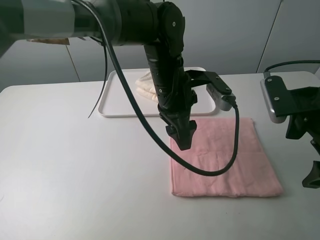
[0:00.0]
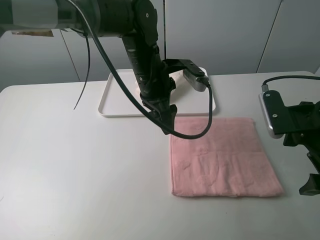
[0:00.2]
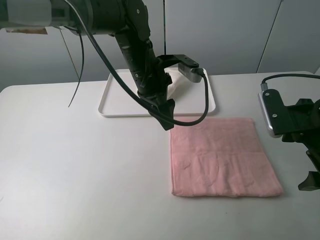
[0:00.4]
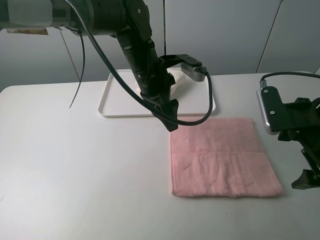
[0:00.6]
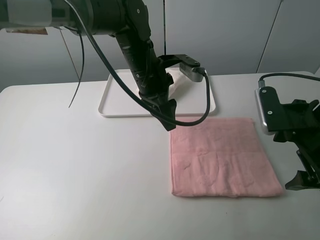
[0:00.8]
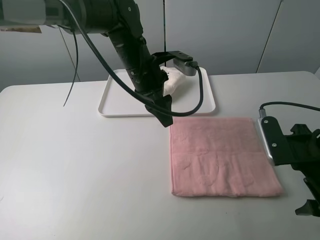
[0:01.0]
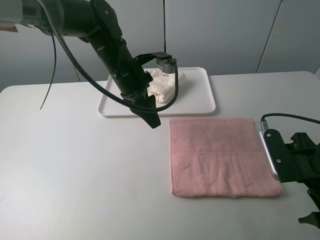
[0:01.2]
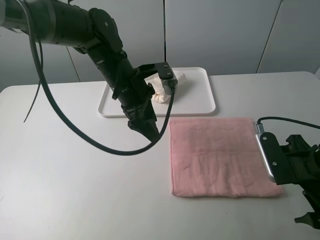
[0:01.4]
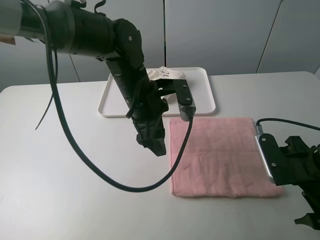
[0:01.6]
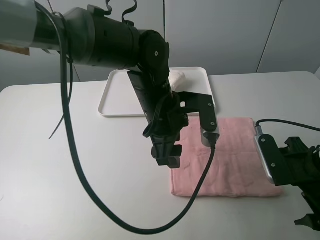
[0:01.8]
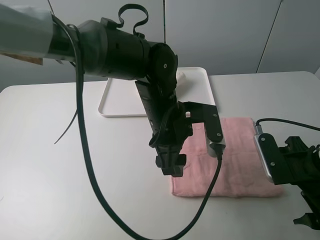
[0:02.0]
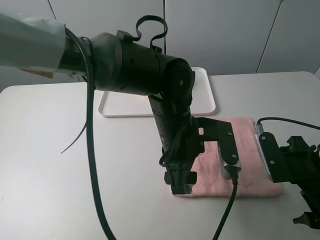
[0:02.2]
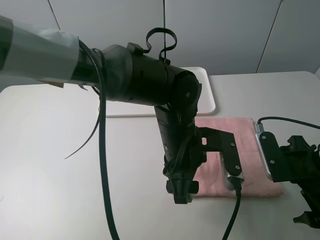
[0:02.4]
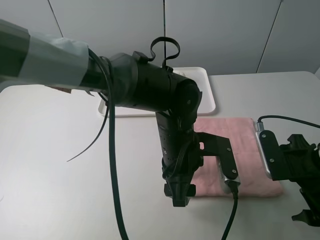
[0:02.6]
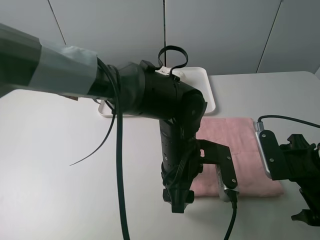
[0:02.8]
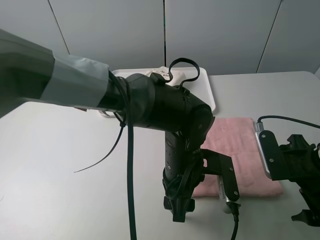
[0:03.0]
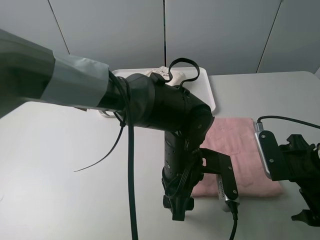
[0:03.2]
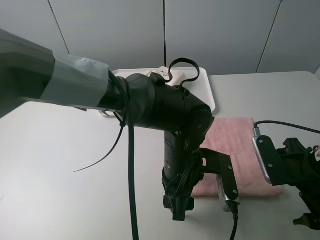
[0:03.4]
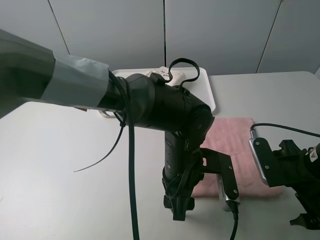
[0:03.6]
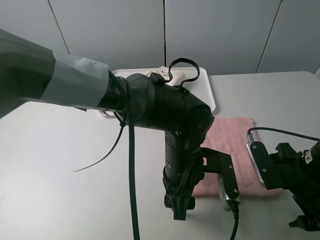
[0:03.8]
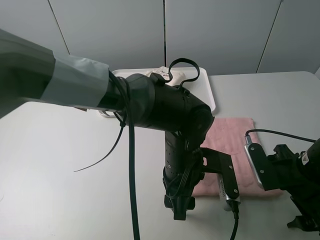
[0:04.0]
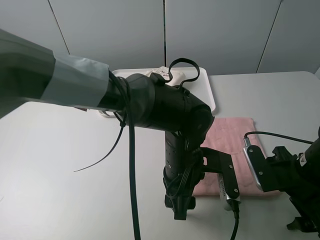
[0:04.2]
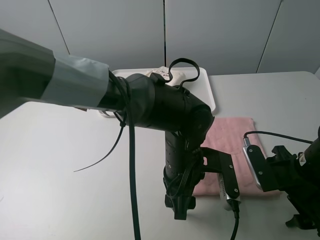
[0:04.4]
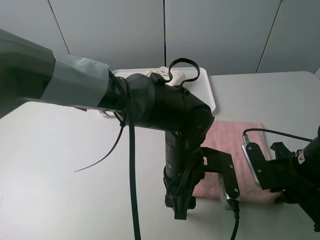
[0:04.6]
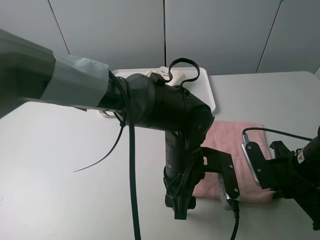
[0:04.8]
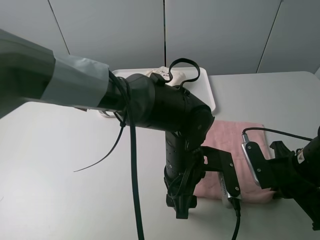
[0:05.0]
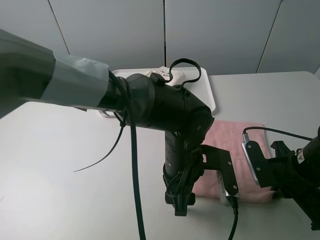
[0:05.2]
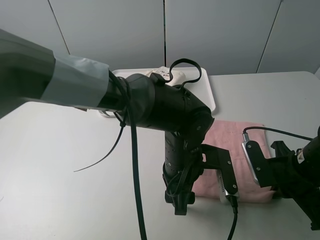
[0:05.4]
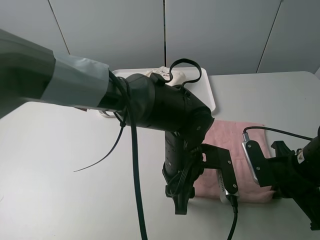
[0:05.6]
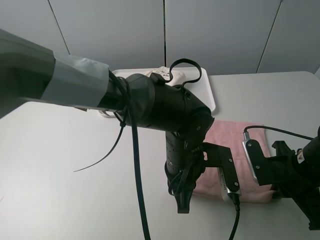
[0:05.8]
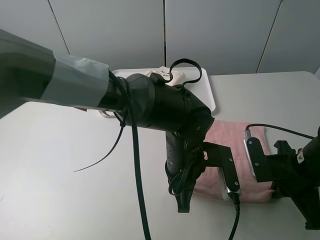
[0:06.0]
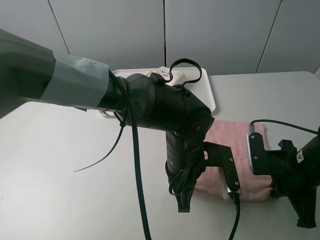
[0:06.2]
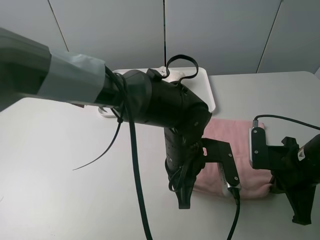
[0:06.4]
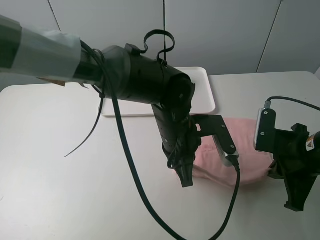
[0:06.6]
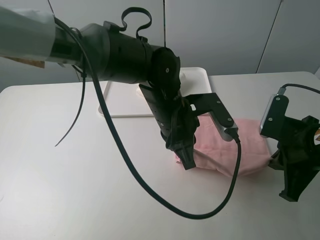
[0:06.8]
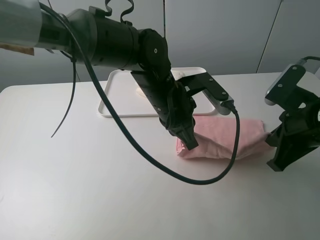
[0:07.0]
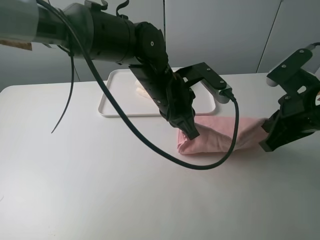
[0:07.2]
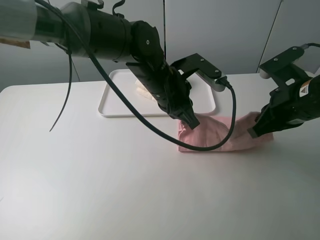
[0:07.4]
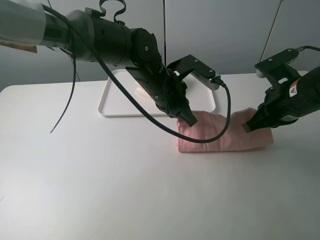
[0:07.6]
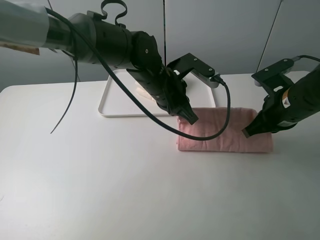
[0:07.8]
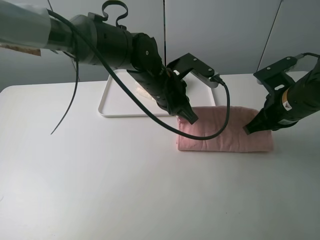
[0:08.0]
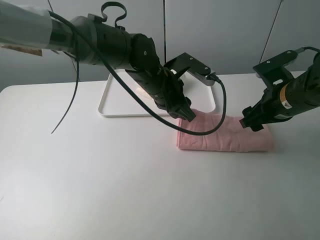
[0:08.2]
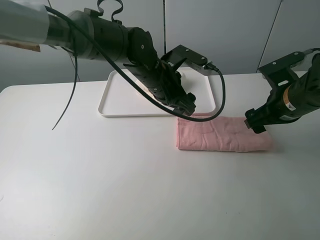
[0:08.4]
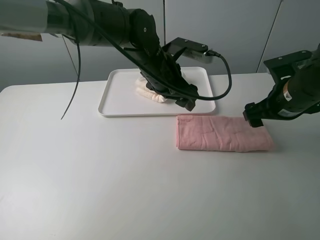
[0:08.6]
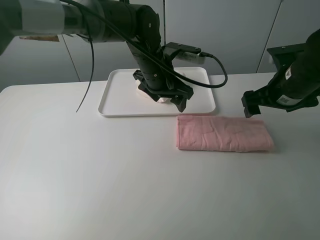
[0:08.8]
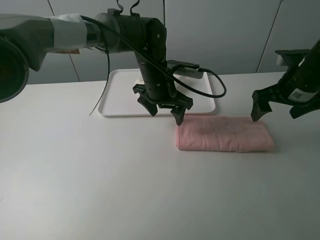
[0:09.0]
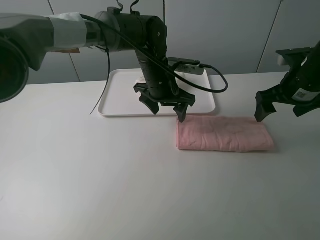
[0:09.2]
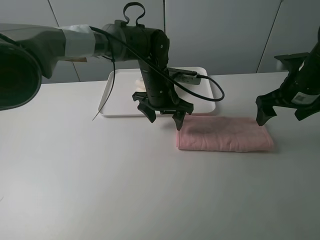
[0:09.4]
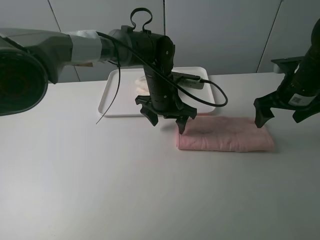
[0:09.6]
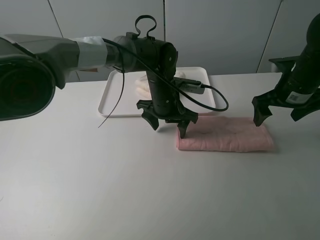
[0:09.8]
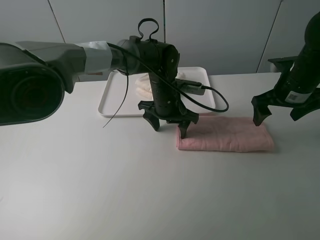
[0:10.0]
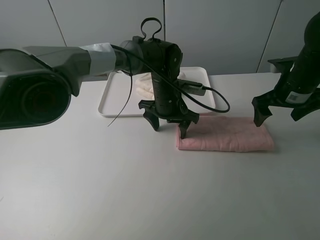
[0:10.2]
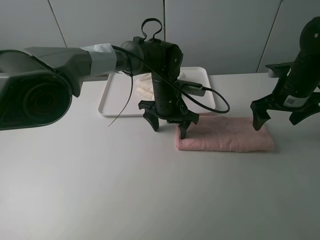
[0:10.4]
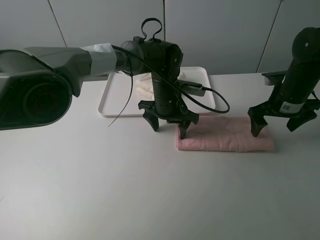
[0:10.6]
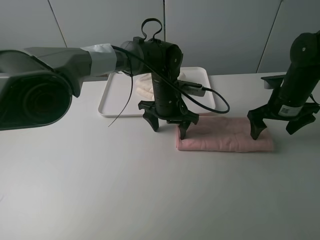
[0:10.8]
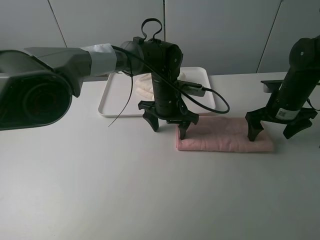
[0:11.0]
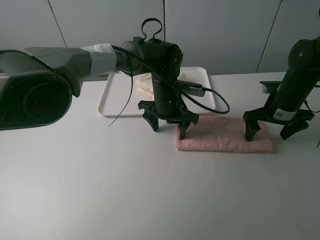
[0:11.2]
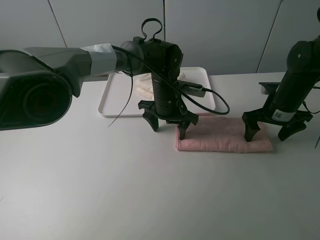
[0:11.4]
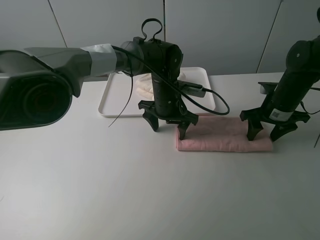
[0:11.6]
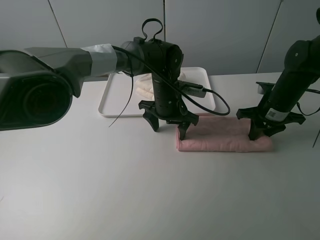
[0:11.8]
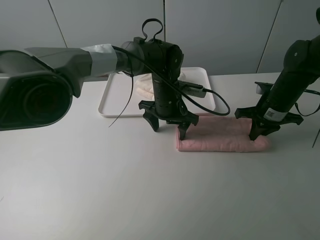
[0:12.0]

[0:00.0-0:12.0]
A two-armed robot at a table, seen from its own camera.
Task of the whole recording: fold one of the towels by two grippers and place it on the tray,then fold another towel by two grippers and place it on the folded towel.
Step, 0:00.0 to 0:06.0: Grasp the pink towel with the left gripper.
Step, 0:06.4 to 0:08.4: Fold the pink towel upwards with the left gripper.
Step, 0:08.6 to 0:10.0: Press the pink towel with the left gripper.
Step, 0:10.2 to 0:12.0: Grasp the pink towel with the right gripper.
0:00.0 to 0:01.6: The right gripper is displaced downward by some 10 cm.
0:01.6 to 0:03.0: The left gripper goes approximately 15 cm backward, to the right and downward.
0:03.0 to 0:04.4: The grippers stay close to where they were, moving slightly.
0:04.4 to 0:06.0: The right gripper closes its fingers, while the left gripper closes up.
0:06.0 to 0:07.6: Both grippers move forward and upward, approximately 10 cm.
0:07.6 to 0:09.0: Both grippers move forward, roughly 5 cm. The right gripper opens up. Meanwhile the left gripper opens up.
0:09.0 to 0:10.4: The left gripper moves some 5 cm.
0:10.4 to 0:12.0: The right gripper goes some 5 cm downward, and closes up.

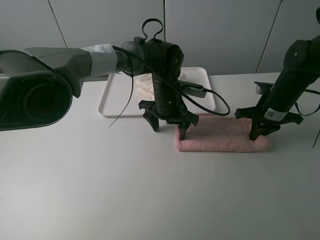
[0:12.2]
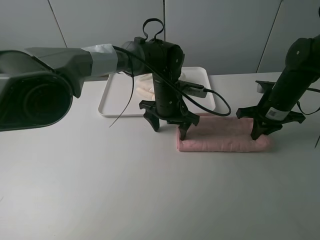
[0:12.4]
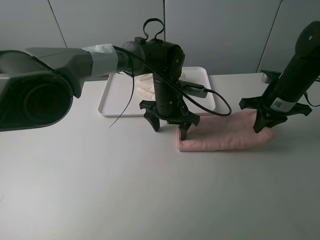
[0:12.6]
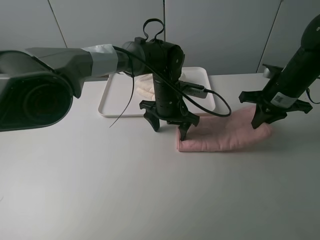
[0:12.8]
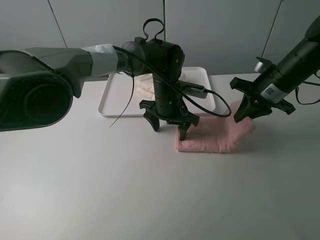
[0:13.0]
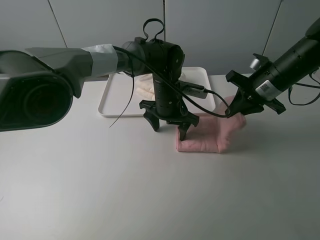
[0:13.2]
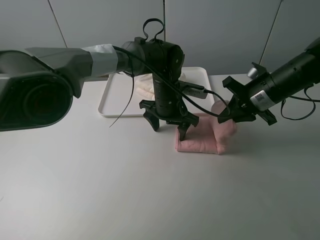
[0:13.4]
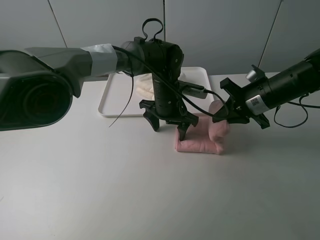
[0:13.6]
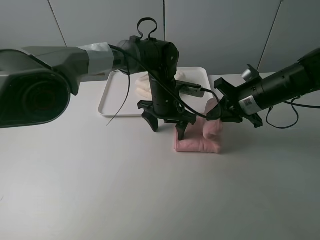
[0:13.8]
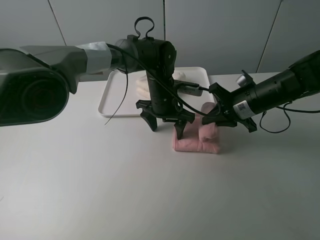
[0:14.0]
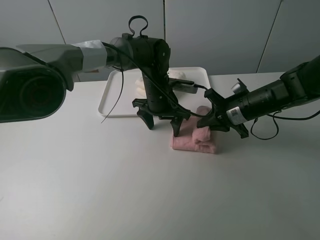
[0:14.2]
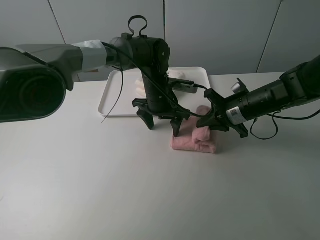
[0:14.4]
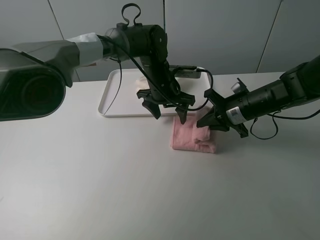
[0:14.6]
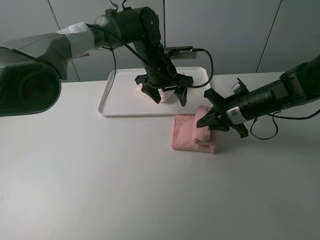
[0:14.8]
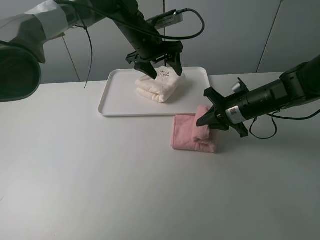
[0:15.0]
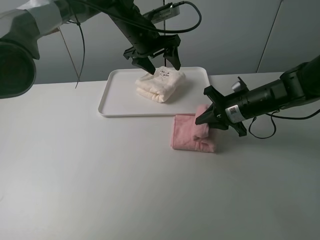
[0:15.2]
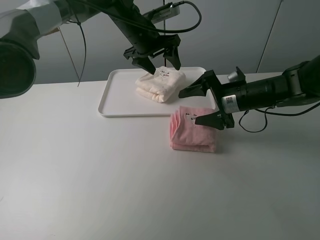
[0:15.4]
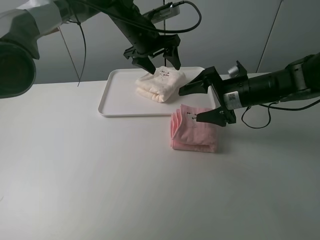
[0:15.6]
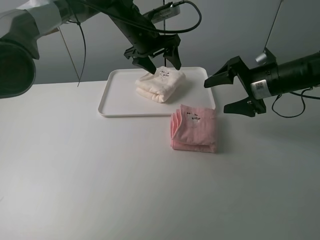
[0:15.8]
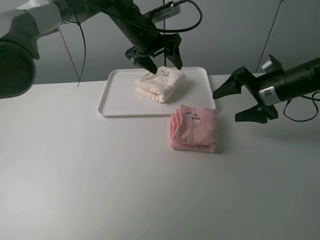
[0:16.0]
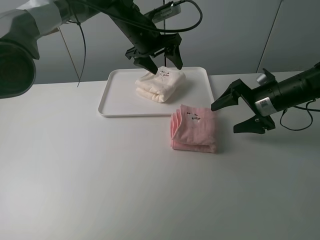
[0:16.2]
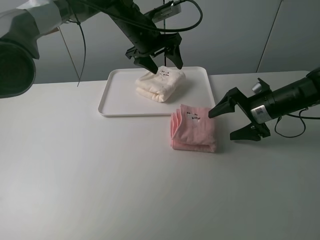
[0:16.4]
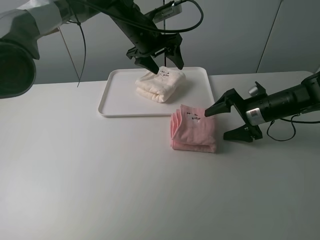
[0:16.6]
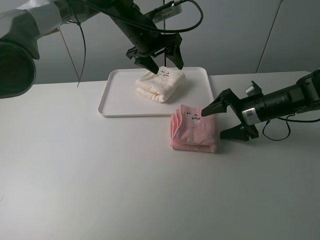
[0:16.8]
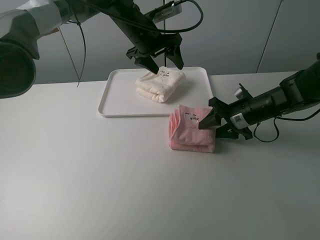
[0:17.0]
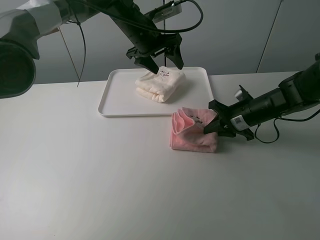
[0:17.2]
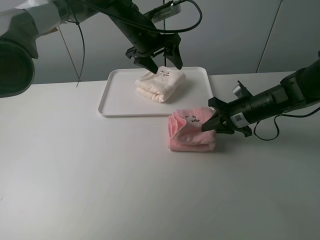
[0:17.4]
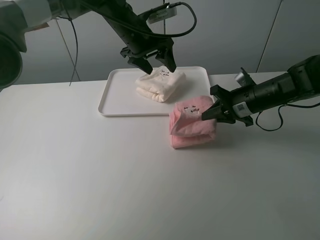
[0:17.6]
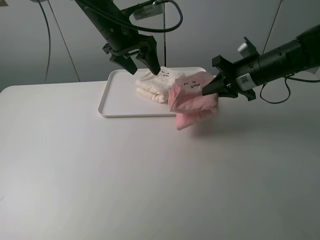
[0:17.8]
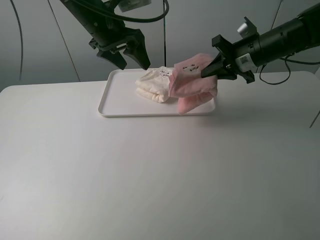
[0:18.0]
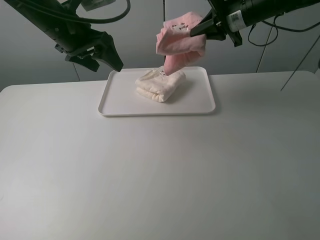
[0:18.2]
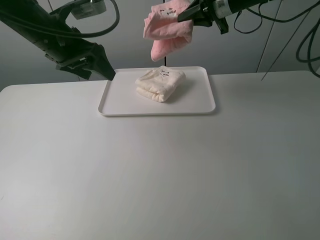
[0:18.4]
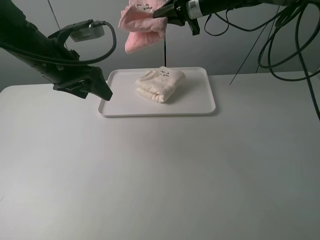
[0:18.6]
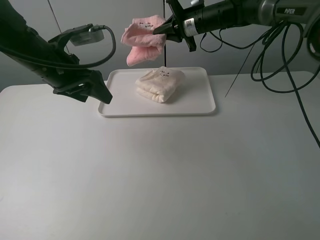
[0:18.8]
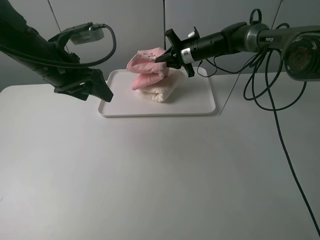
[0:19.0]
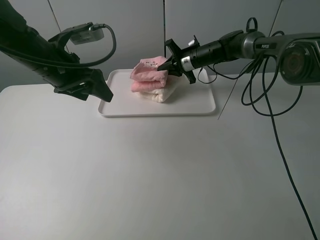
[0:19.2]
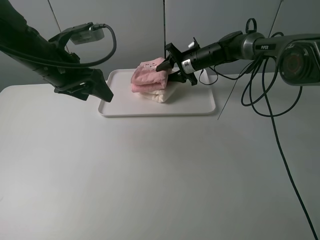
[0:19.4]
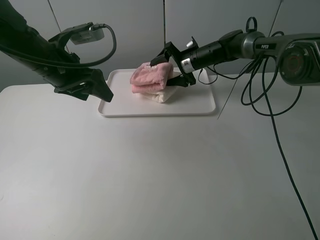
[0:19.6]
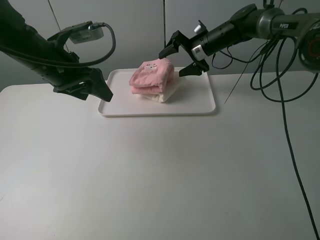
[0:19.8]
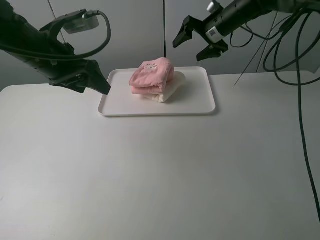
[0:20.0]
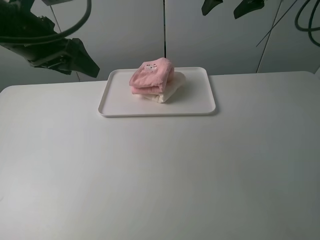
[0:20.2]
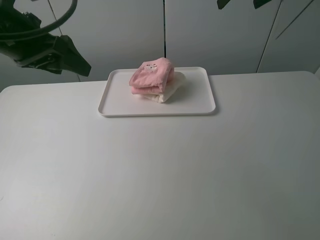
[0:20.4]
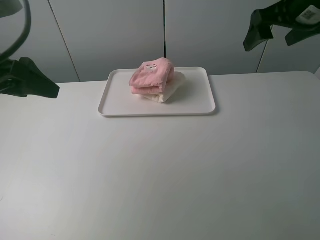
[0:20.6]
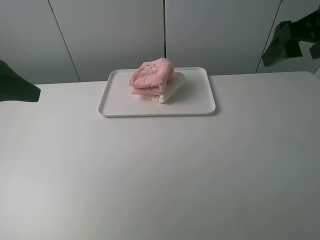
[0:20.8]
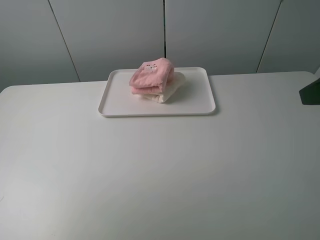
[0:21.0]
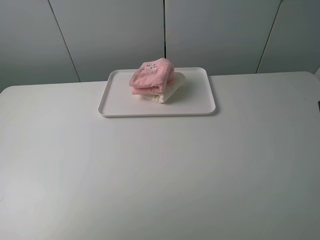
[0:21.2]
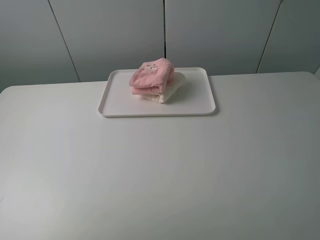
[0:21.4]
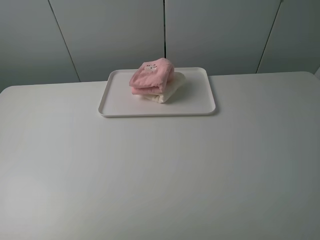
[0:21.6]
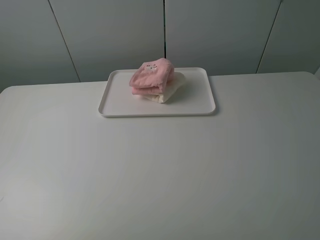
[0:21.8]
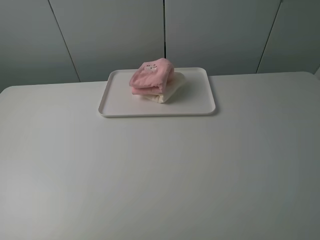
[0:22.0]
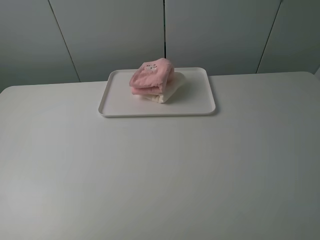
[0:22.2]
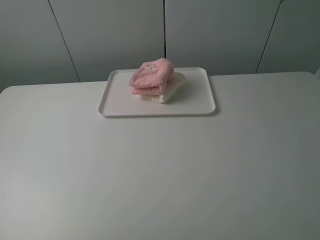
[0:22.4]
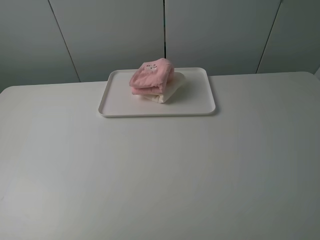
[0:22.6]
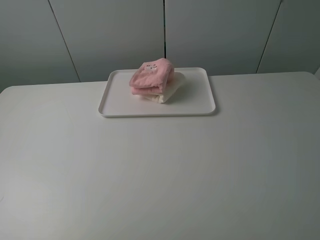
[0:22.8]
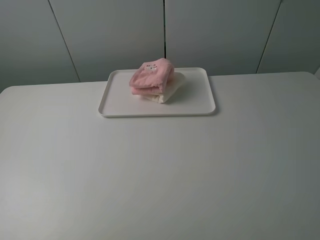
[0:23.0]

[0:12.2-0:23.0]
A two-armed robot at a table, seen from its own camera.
Task of the whole recording: fold one of the towels by two grippers and place it on the tray,then fold another towel by two grippers and place it on the folded towel.
Step, 0:12.2 to 0:15.6: Fold the pink towel from right to left with right gripper.
Step, 0:15.8 to 0:17.2: Grasp the pink towel with the right gripper.
Step, 0:17.4 to 0:19.8: Place the pink towel on the white towel with the right gripper.
0:12.2 to 0:13.8: The right gripper is displaced to the left by some 5 cm.
0:13.8 to 0:15.2: The left gripper shifts some 15 cm upward, forward and to the left.
0:15.2 to 0:16.8: The right gripper goes upward and returns, roughly 5 cm each way, and opens its fingers.
0:16.8 to 0:18.4: The right gripper shifts some 25 cm upward, forward and to the left, and closes its fingers. Meanwhile the left gripper goes about 20 cm to the left and backward.
0:18.4 to 0:20.0: The right gripper moves approximately 20 cm downward and comes back, and opens its fingers.
0:20.0 to 0:21.4: The left gripper goes approximately 30 cm backward and to the left, while the right gripper goes approximately 50 cm backward.
